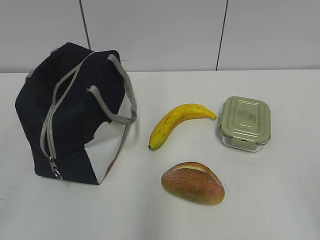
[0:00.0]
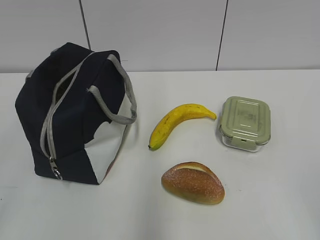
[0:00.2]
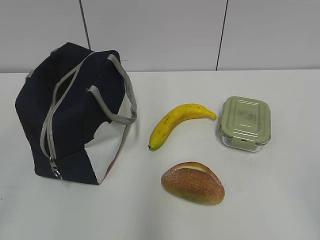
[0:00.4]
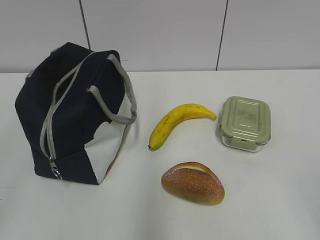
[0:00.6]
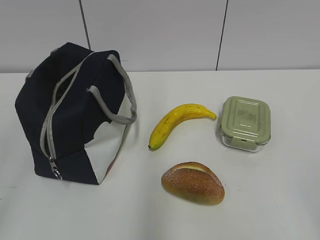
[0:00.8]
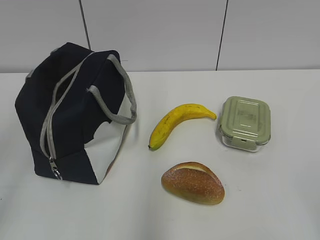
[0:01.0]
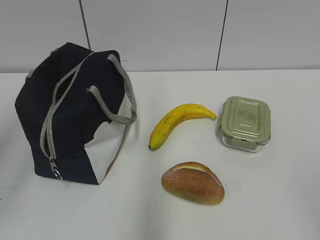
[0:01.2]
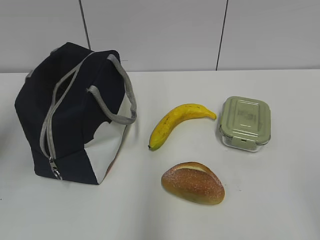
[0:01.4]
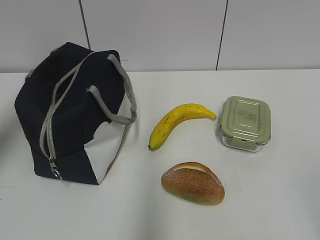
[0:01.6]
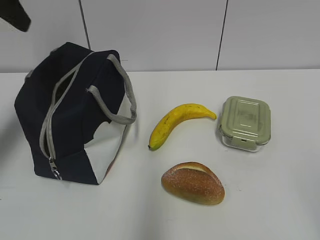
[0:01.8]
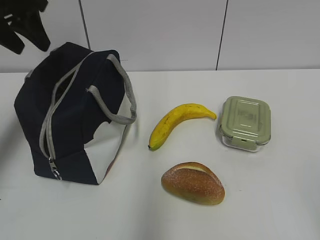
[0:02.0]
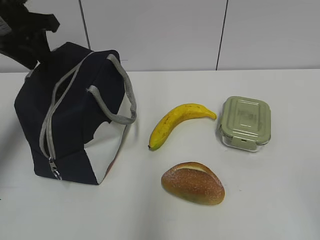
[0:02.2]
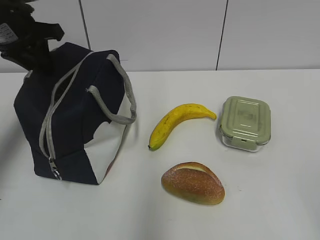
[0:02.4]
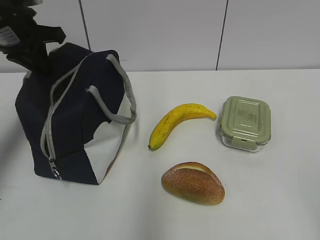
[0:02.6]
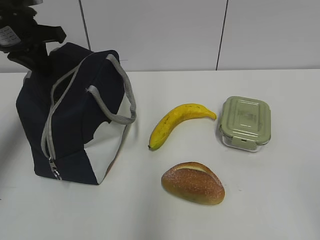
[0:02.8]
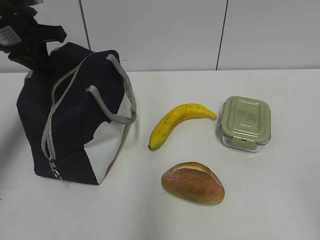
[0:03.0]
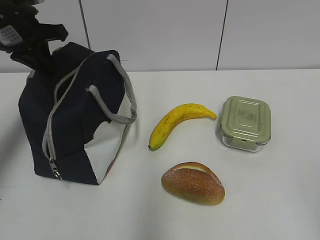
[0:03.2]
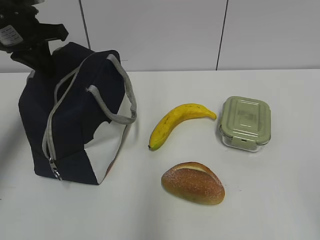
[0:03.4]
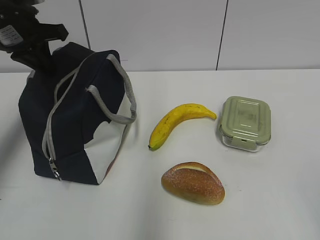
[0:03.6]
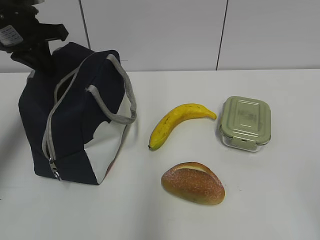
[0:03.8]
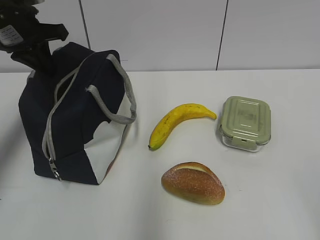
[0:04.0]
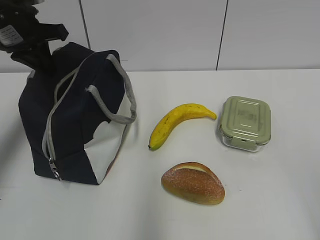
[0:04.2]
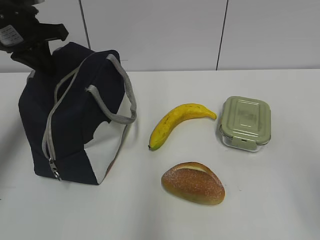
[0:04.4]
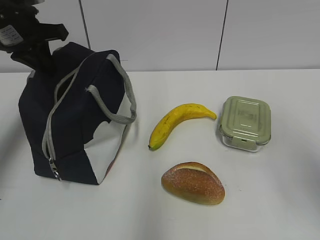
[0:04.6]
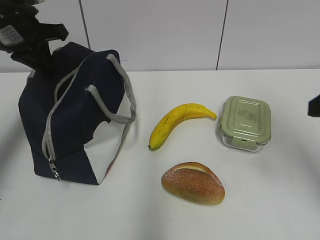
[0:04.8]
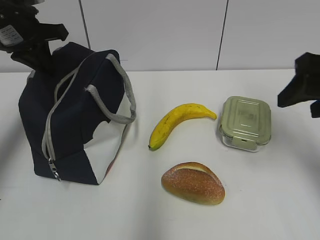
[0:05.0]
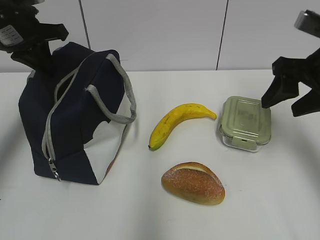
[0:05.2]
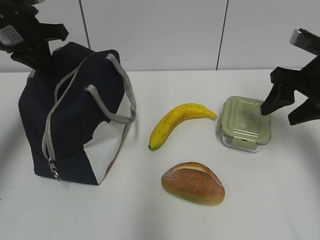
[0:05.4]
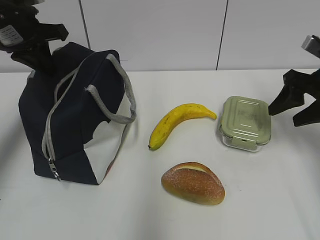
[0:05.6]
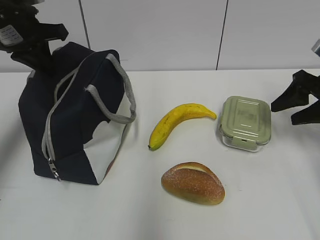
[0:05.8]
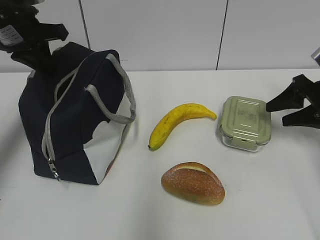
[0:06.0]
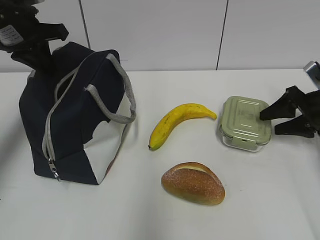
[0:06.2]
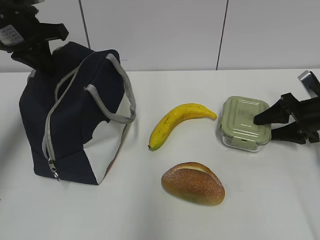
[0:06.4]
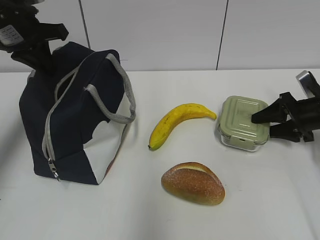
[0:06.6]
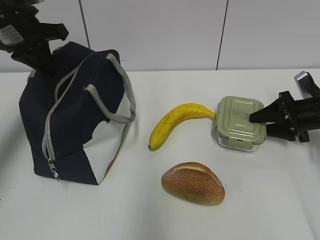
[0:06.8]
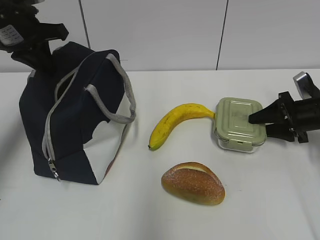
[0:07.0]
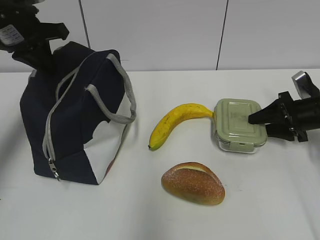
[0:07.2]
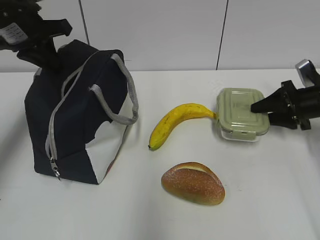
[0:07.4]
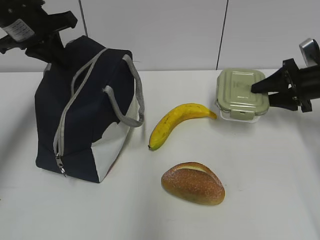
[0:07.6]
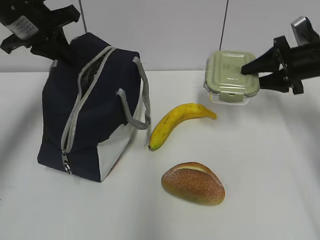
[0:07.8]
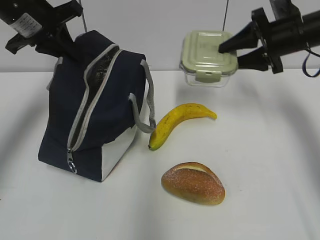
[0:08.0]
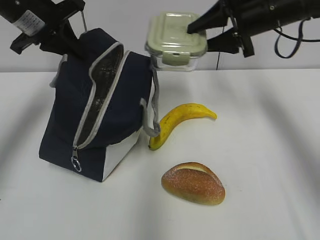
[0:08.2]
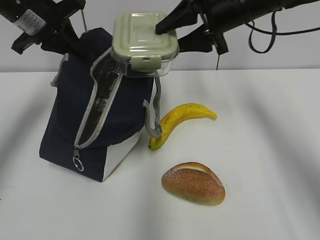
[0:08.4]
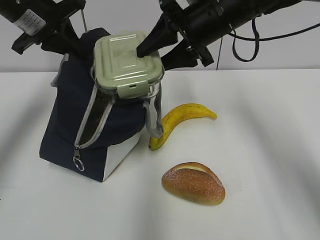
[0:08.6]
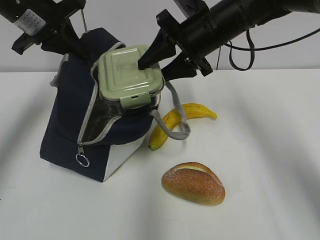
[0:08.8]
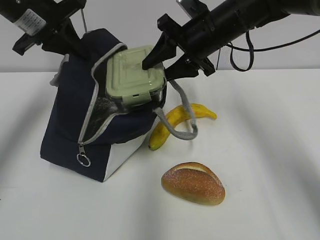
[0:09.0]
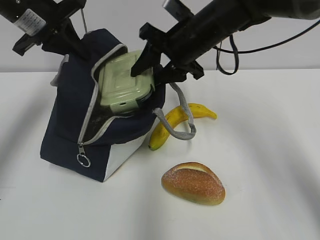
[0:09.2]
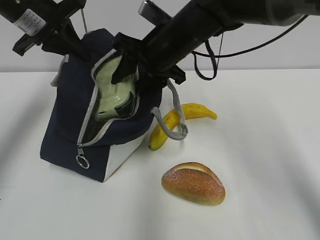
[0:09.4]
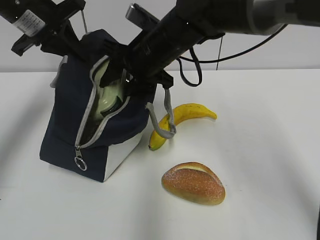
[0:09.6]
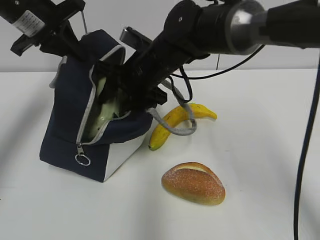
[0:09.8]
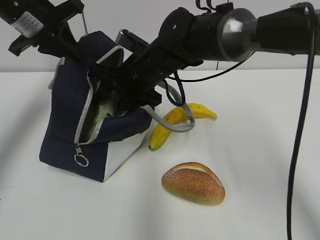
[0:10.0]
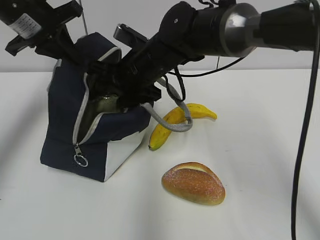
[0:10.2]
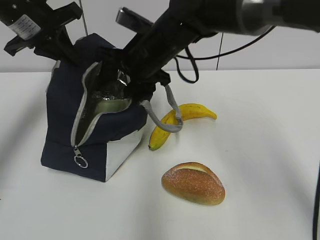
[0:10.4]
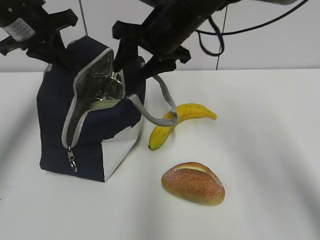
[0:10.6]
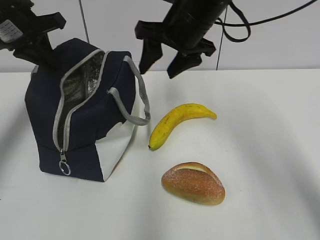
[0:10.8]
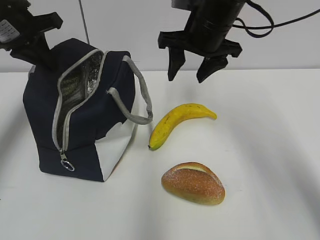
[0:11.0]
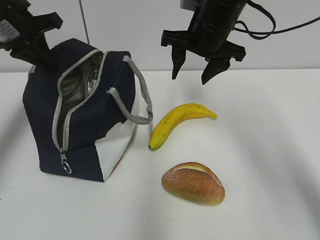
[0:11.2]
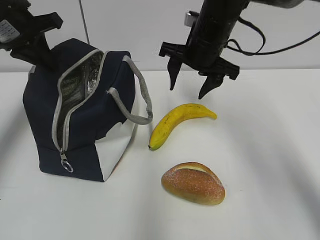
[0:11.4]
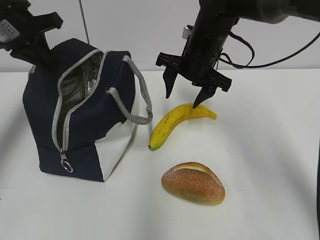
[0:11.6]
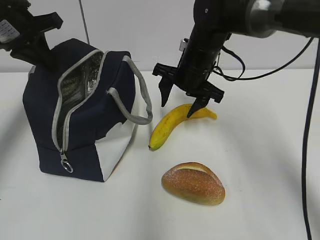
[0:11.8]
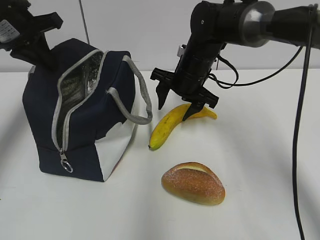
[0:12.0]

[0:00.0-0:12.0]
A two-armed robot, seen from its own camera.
0:01.6 to 0:03.0: The left gripper heads forward and downward, covering some 20 cm, and closes its fingers.
0:04.4 to 0:06.0: The right gripper is displaced forward and downward by about 30 cm.
0:07.6 to 0:09.0: The right gripper shifts roughly 25 cm to the left and upward.
0:09.0 to 0:10.4: The right gripper is displaced to the left by approximately 10 cm.
0:10.4 to 0:12.0: The right gripper is displaced to the right and downward by roughly 10 cm.

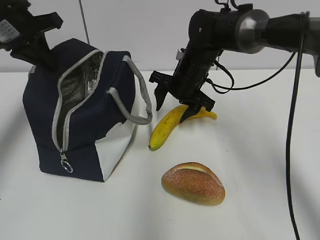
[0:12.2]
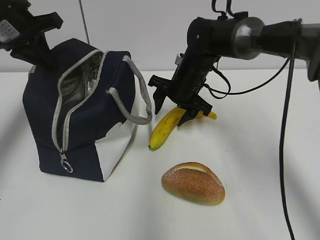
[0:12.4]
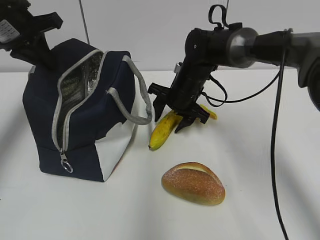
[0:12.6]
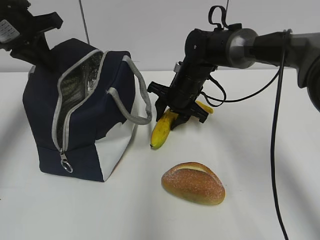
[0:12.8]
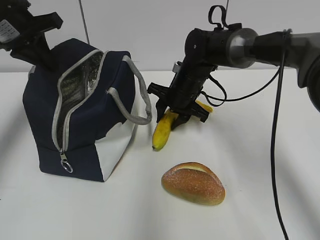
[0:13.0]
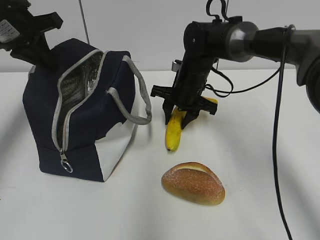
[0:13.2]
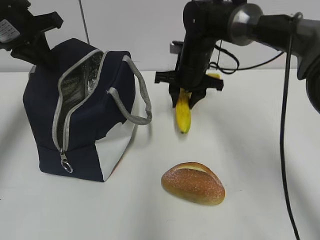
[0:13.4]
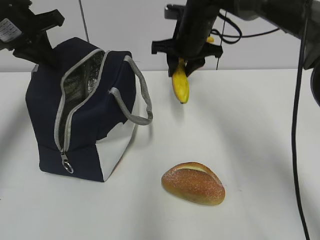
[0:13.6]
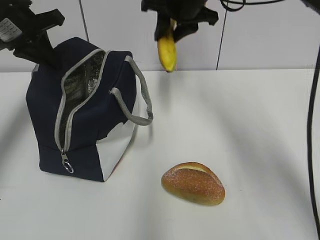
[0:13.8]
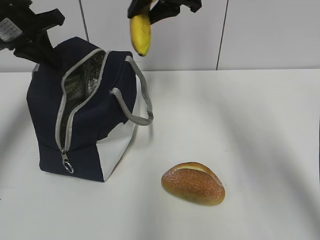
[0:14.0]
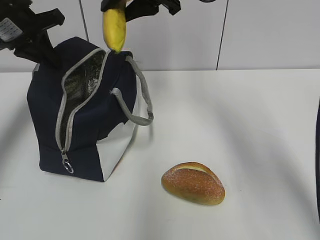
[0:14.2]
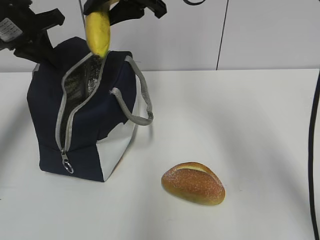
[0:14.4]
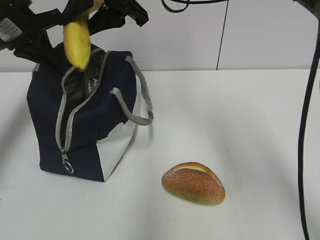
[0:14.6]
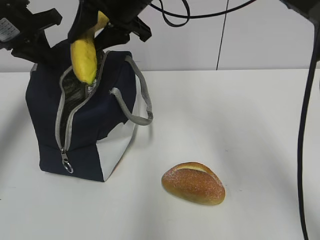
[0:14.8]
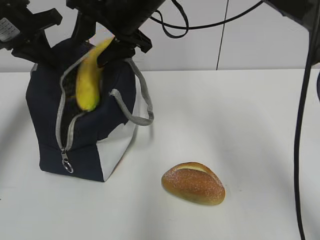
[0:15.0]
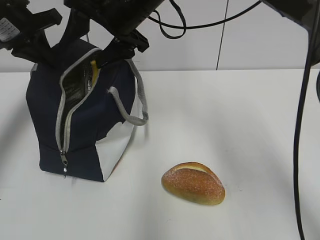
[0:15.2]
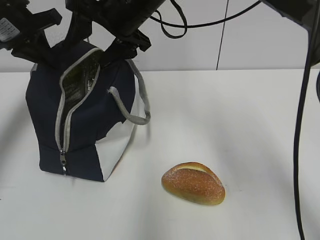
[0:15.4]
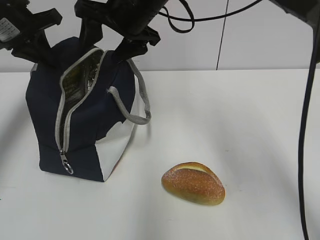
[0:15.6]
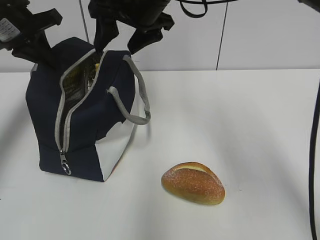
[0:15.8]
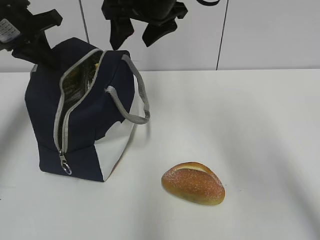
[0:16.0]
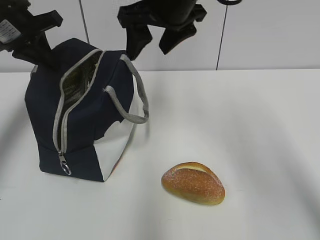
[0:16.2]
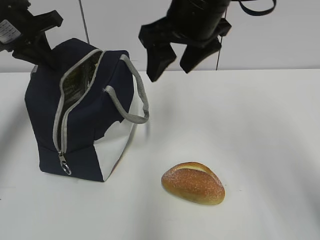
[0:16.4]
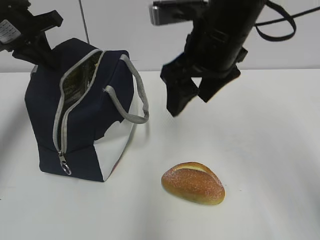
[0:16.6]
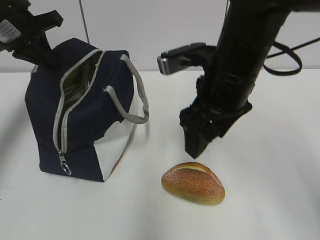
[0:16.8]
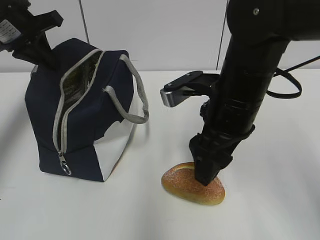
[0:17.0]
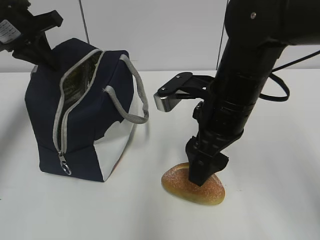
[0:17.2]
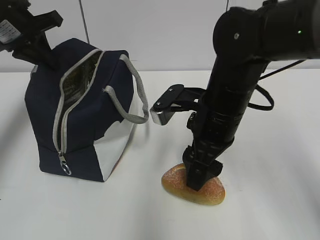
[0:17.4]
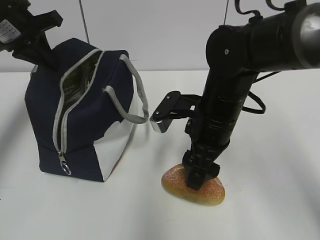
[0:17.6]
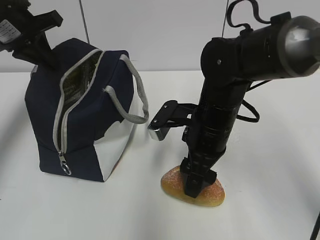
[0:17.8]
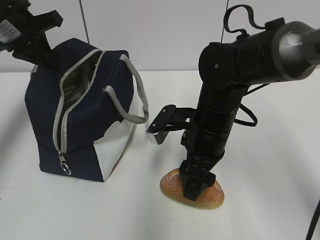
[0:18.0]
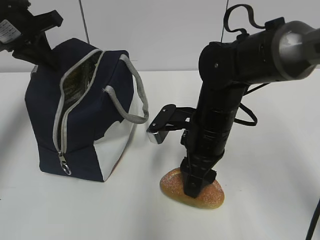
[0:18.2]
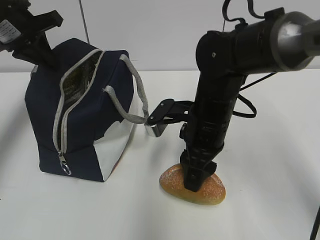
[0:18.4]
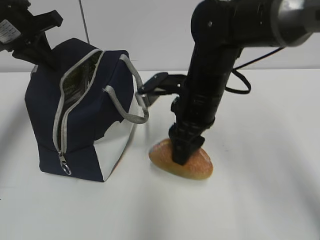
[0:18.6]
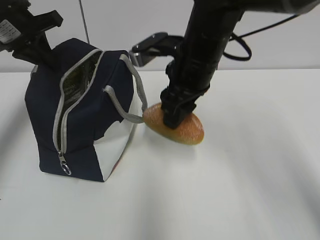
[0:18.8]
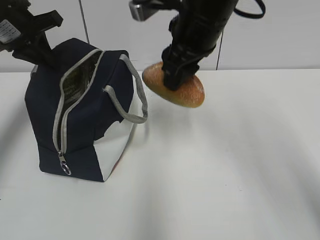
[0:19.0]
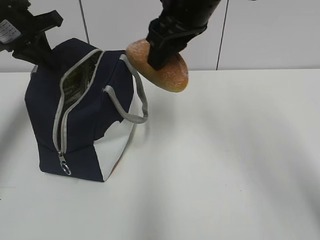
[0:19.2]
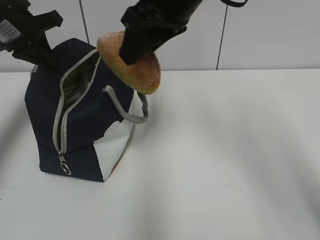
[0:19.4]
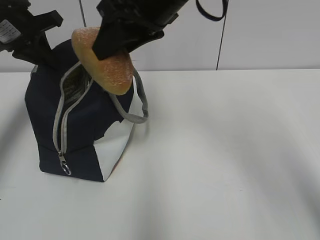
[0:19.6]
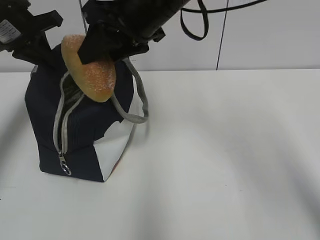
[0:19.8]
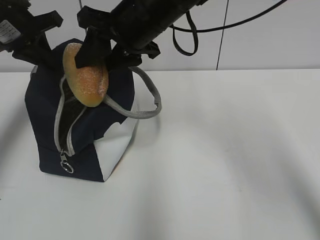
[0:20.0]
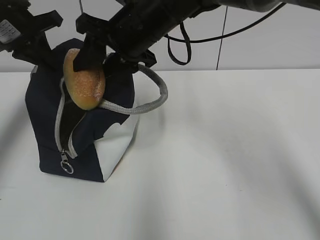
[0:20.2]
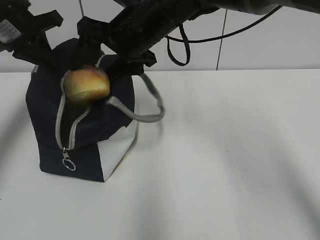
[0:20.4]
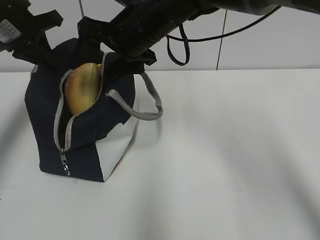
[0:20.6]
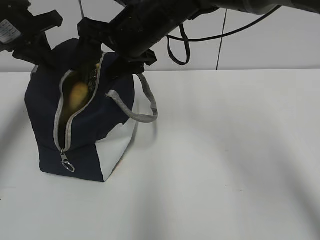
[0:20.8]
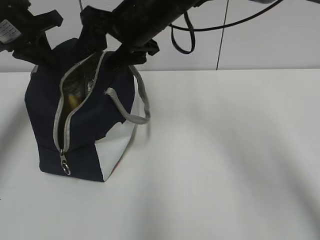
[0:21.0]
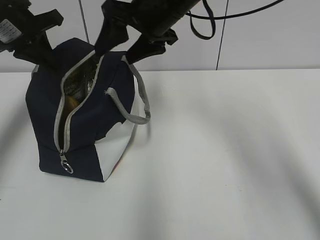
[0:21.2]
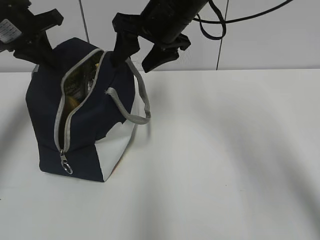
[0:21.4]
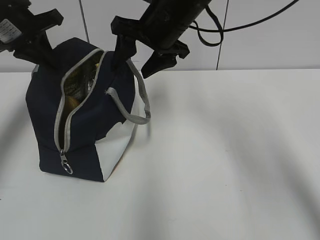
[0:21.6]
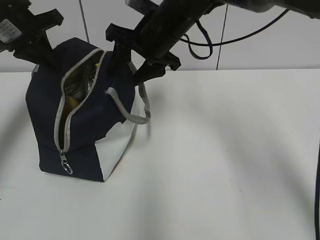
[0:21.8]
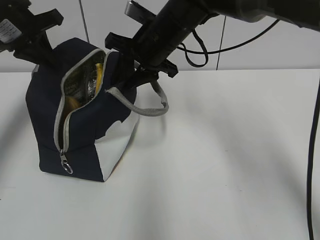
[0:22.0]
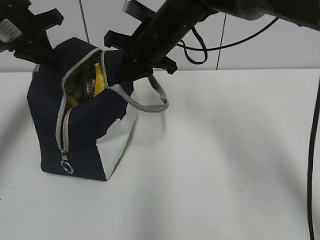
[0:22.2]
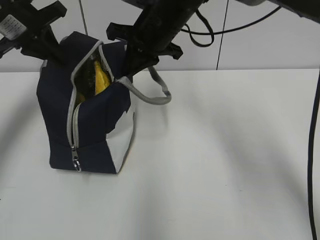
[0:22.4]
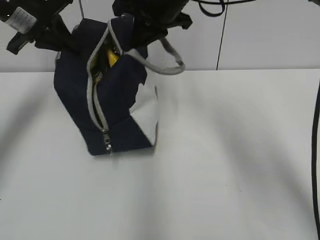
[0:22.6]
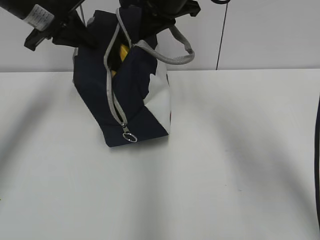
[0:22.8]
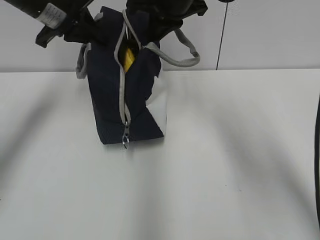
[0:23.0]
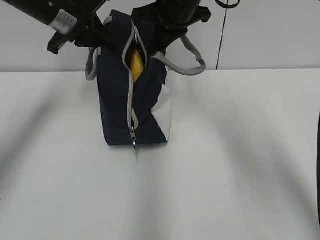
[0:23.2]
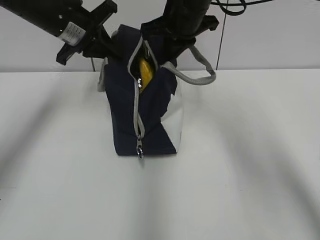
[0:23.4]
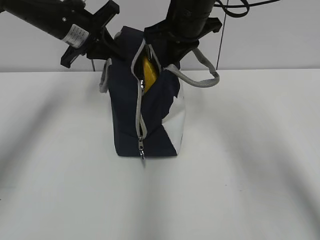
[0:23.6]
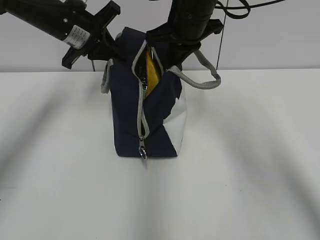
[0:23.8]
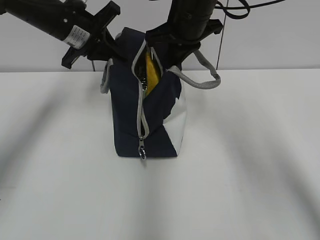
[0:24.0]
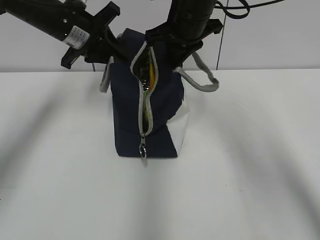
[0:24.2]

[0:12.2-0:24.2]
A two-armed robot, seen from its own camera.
0:12.2 to 0:13.8: The right gripper shifts some 15 cm upward, and closes up.
0:13.8 to 0:15.2: The right gripper is displaced to the left and backward by about 10 cm, and opens its fingers.
0:15.2 to 0:16.6: The right gripper shifts some 15 cm to the right and backward.
0:16.6 to 0:18.2: The right gripper goes some 15 cm downward.
0:18.2 to 0:19.8: The right gripper moves upward, roughly 15 cm.
0:19.8 to 0:21.2: The right gripper opens.
0:21.2 to 0:22.6: The right gripper closes its fingers.
0:22.6 to 0:24.2: The left gripper travels to the right by some 5 cm.
